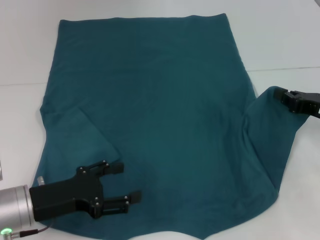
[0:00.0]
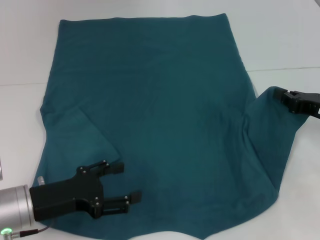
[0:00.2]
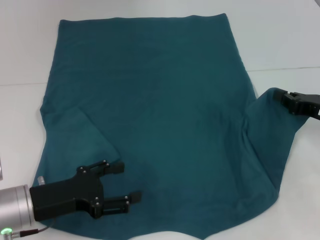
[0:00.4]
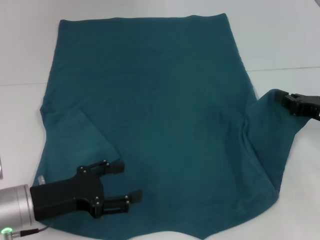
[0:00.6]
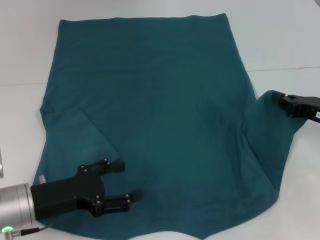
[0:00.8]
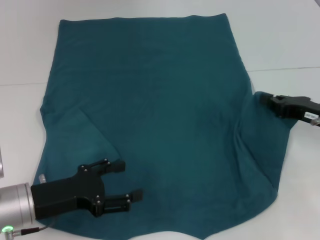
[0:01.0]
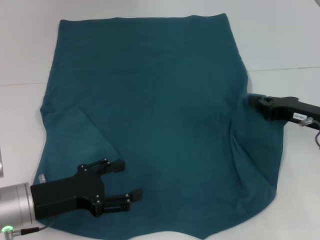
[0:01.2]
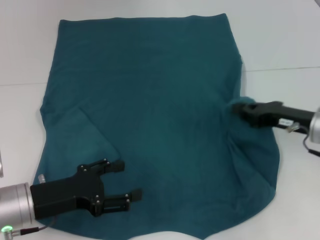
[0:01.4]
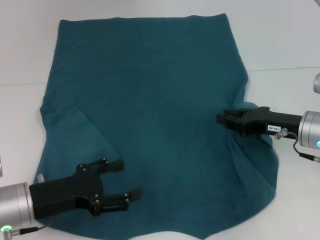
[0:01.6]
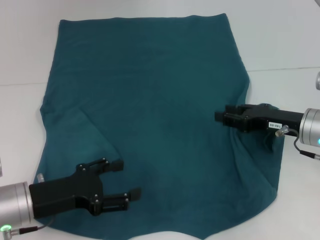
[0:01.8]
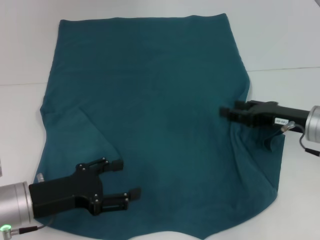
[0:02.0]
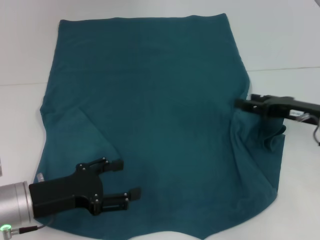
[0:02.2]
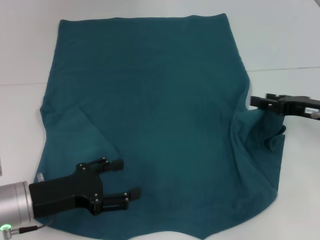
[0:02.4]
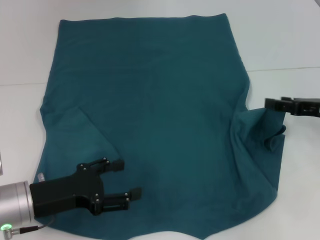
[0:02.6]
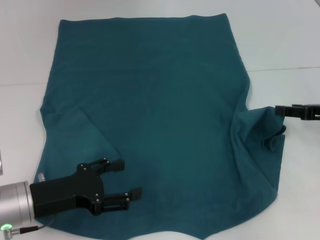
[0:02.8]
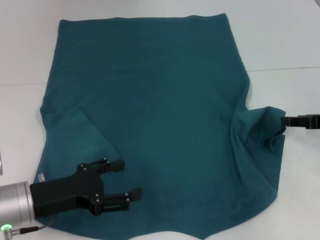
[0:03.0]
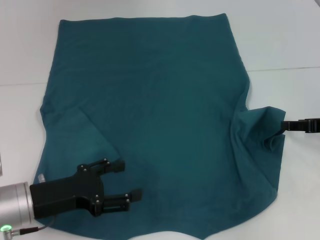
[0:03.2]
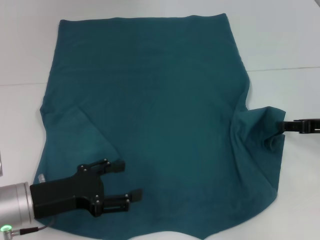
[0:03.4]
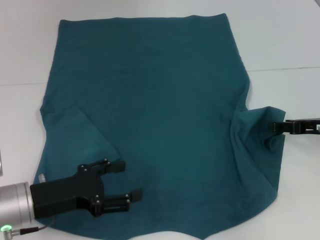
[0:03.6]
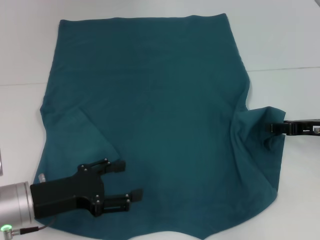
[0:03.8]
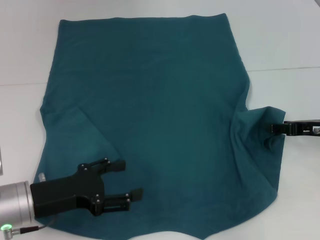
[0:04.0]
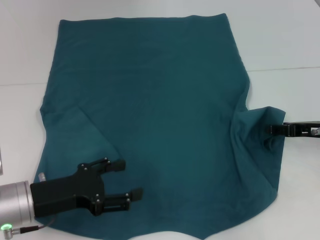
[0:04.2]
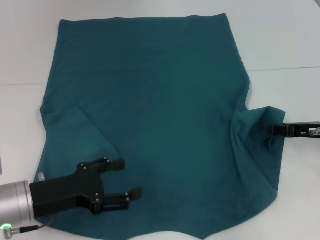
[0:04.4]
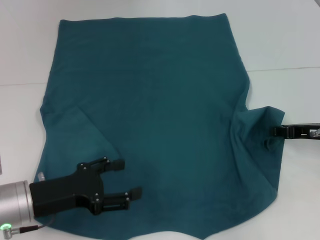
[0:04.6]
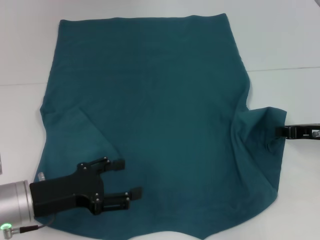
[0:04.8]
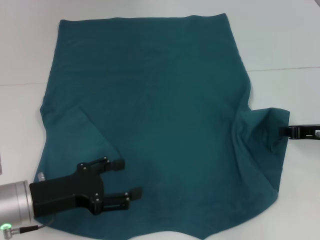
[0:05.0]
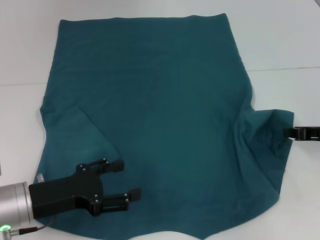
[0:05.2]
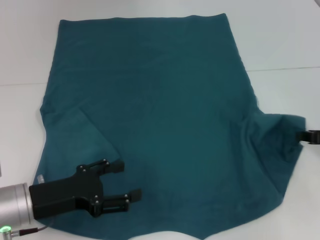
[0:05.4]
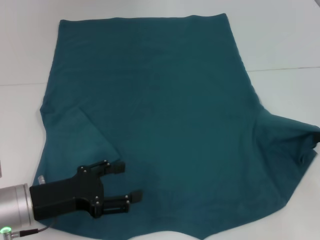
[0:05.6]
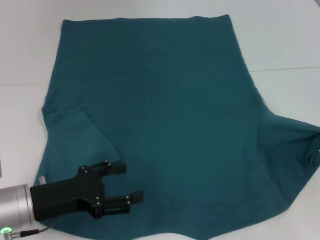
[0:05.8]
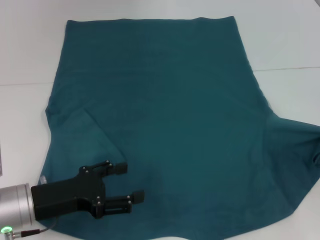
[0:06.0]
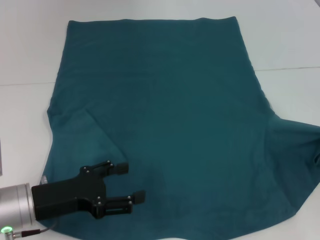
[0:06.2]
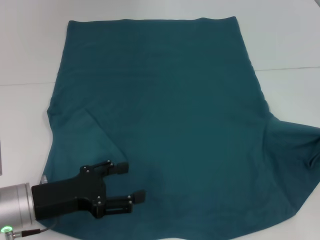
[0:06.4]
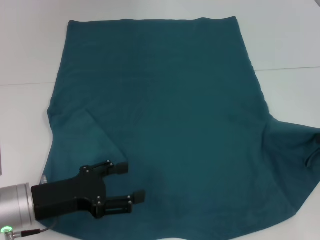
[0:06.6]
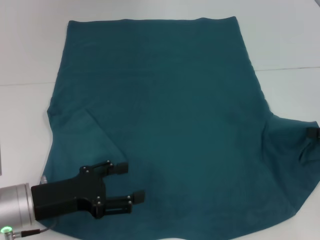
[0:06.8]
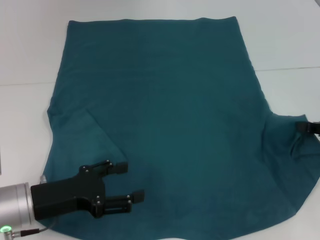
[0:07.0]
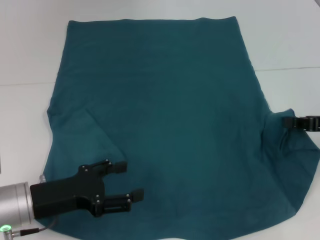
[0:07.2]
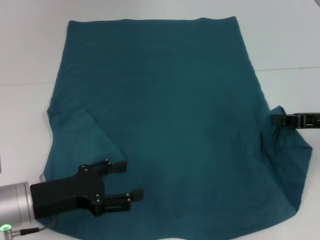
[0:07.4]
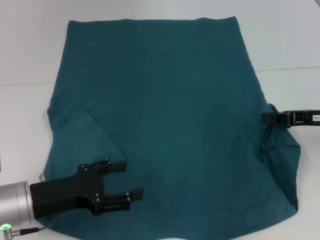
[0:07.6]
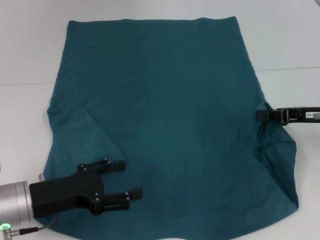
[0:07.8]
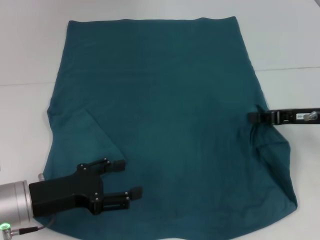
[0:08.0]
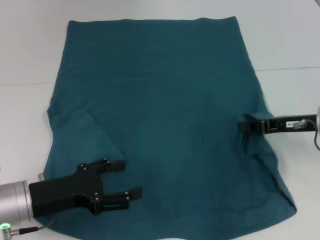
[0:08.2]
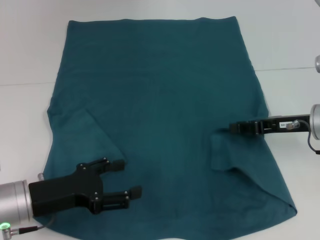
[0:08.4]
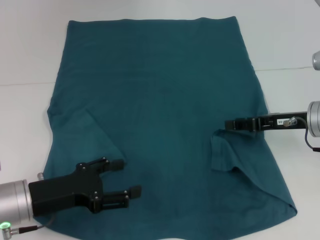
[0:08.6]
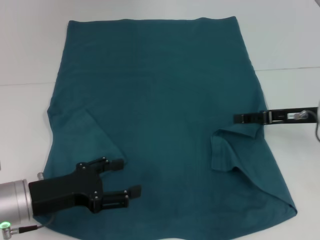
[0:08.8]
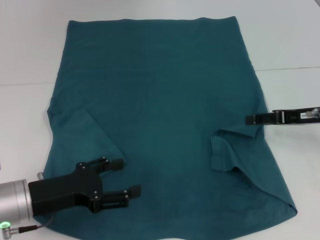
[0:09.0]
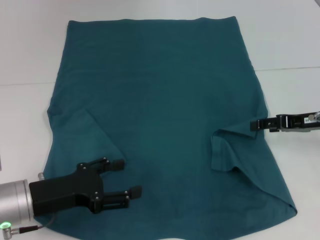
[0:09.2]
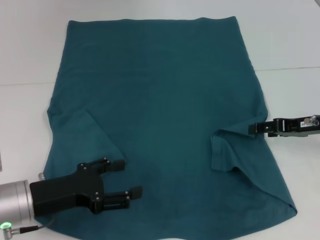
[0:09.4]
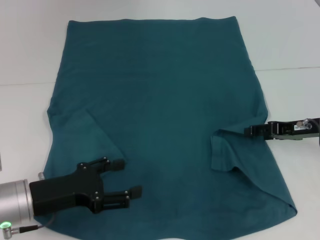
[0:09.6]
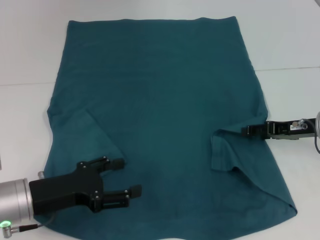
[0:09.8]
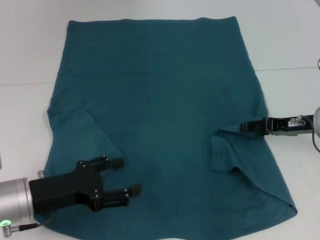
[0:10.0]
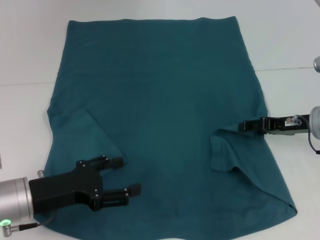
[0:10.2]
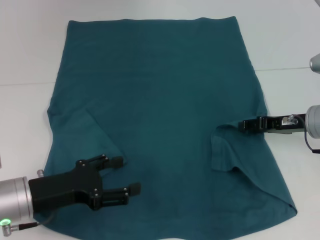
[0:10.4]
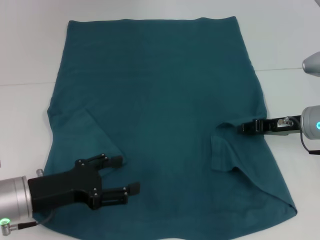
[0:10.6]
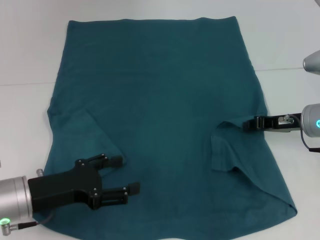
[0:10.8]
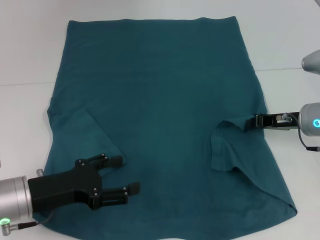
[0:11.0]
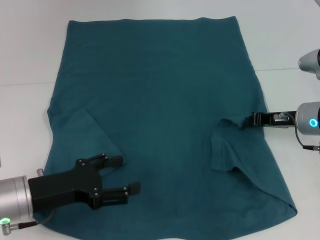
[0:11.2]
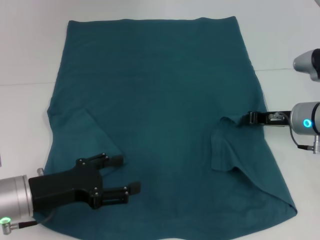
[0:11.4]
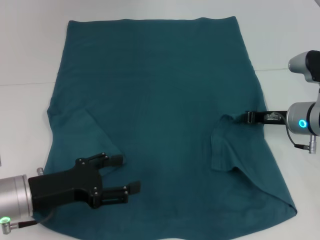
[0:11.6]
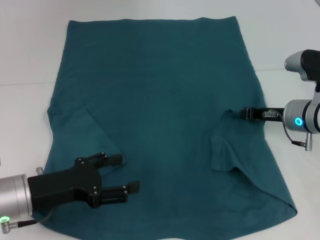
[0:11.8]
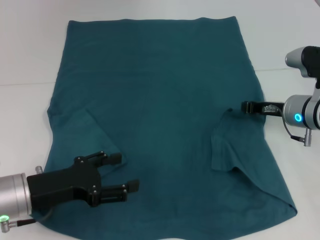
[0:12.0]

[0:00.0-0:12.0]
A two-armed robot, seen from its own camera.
0:00.0 to 0:01.6: The right gripper goes roughly 5 cm to the left.
0:01.6 to 0:03.0: The right gripper travels to the right by some 10 cm, and opens.
0:03.0 to 0:04.4: The grippers make only small movements.
0:04.4 to 0:06.0: The right gripper travels to the right and backward by some 10 cm, and closes up.
0:06.0 to 0:07.6: The right gripper is displaced to the left and forward by about 10 cm.
0:07.6 to 0:09.0: The right gripper opens its fingers.
0:09.0 to 0:10.4: The grippers stay close to where they were, moving slightly.
0:10.4 to 0:12.0: The right gripper closes up.

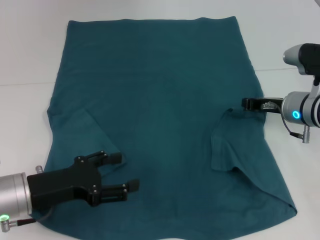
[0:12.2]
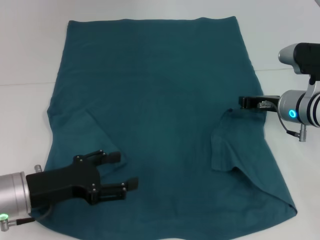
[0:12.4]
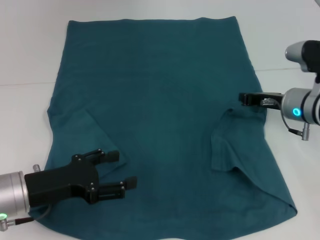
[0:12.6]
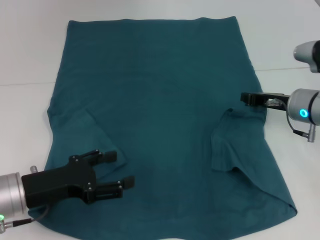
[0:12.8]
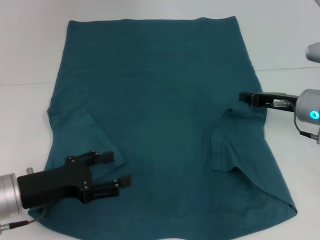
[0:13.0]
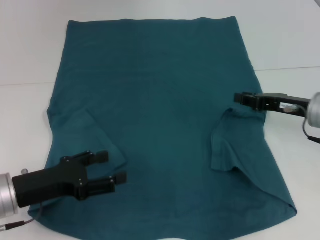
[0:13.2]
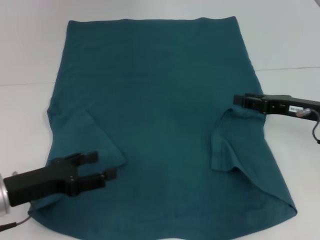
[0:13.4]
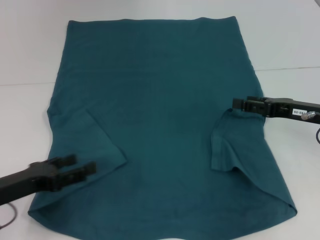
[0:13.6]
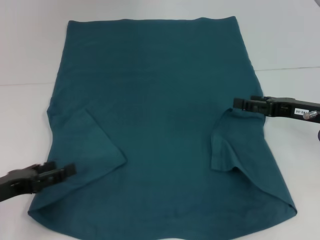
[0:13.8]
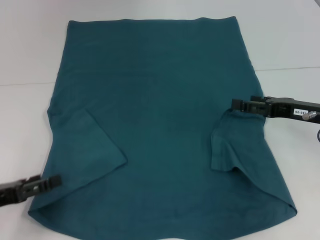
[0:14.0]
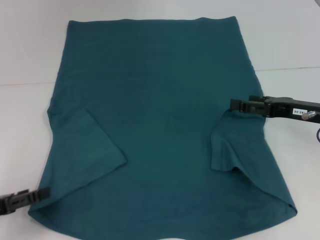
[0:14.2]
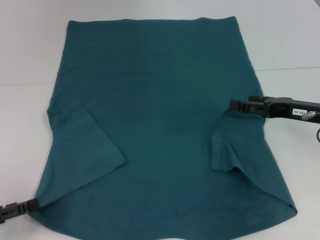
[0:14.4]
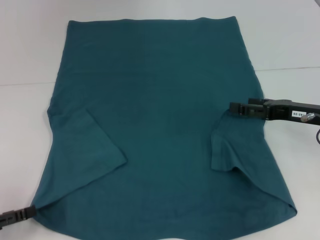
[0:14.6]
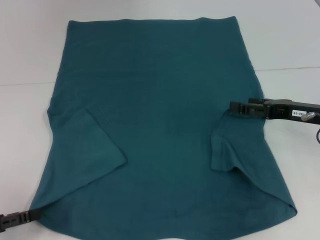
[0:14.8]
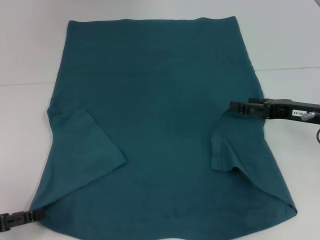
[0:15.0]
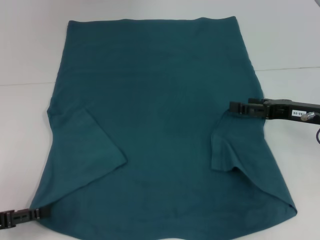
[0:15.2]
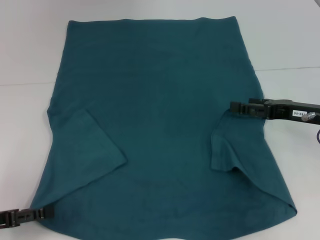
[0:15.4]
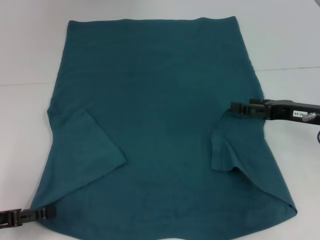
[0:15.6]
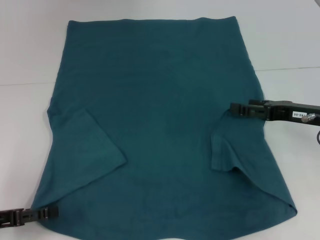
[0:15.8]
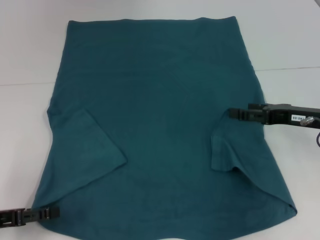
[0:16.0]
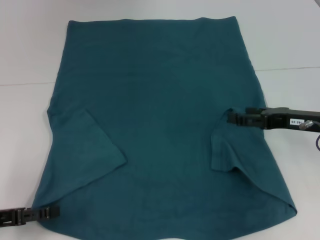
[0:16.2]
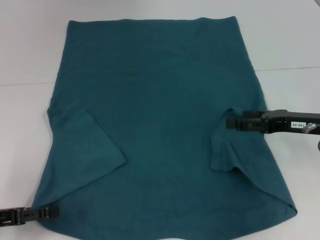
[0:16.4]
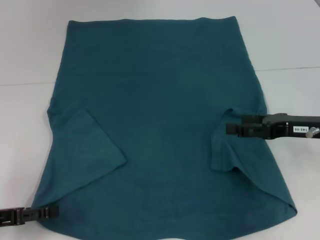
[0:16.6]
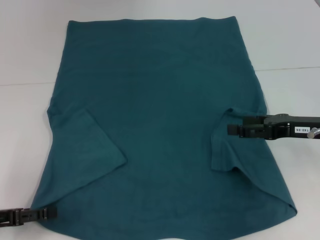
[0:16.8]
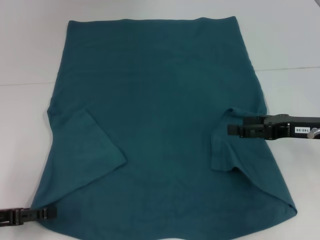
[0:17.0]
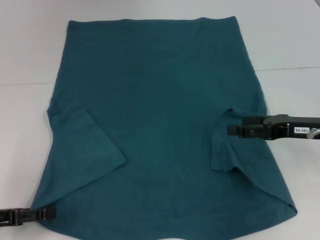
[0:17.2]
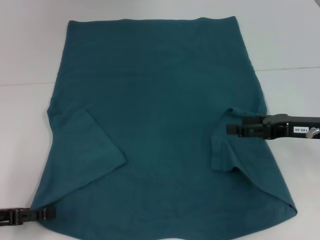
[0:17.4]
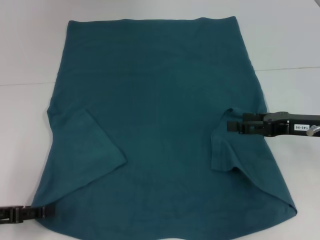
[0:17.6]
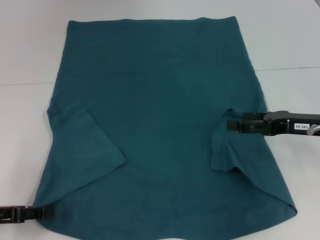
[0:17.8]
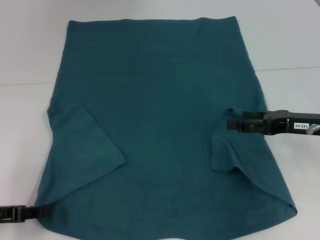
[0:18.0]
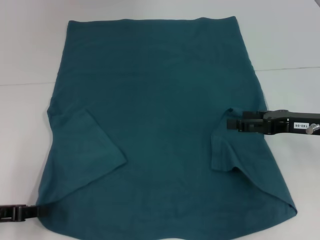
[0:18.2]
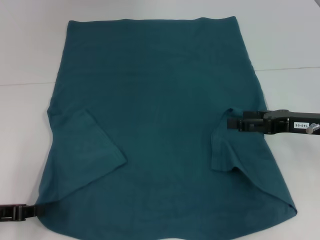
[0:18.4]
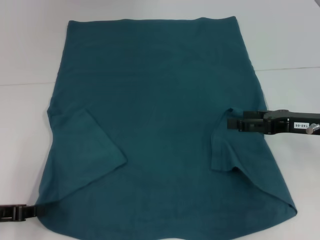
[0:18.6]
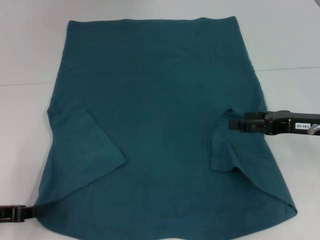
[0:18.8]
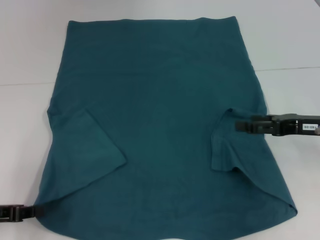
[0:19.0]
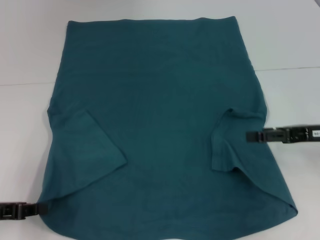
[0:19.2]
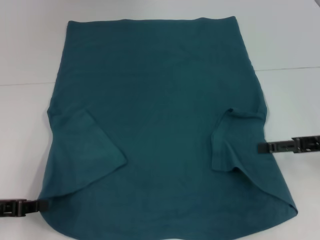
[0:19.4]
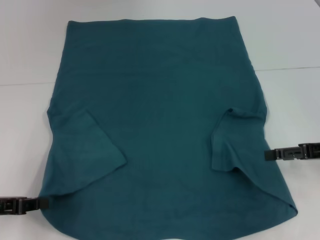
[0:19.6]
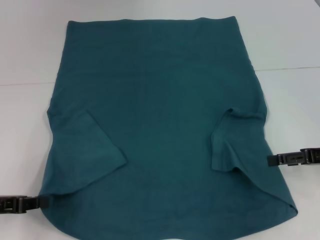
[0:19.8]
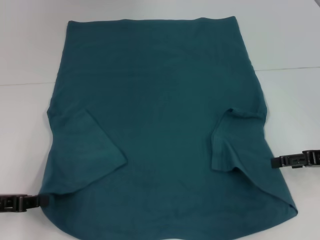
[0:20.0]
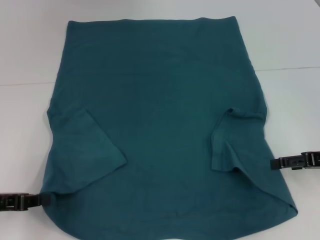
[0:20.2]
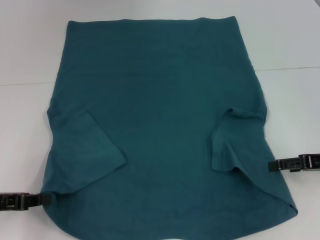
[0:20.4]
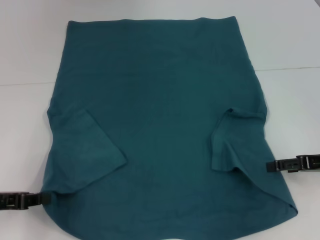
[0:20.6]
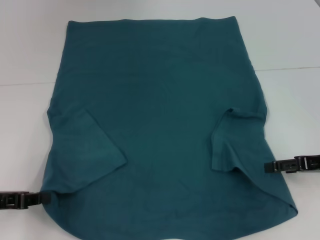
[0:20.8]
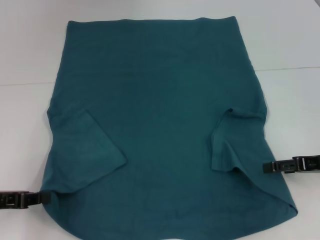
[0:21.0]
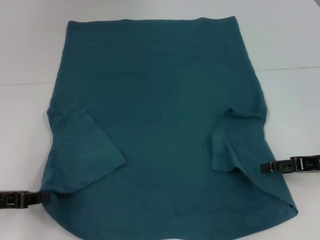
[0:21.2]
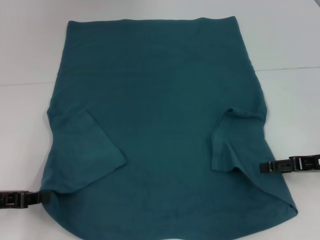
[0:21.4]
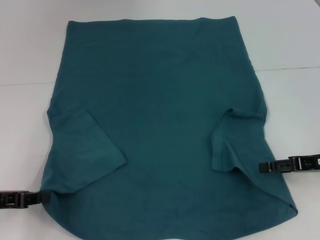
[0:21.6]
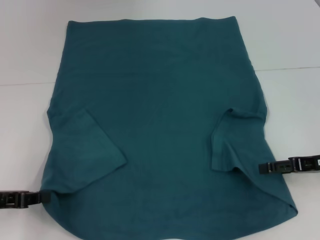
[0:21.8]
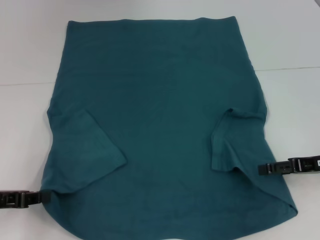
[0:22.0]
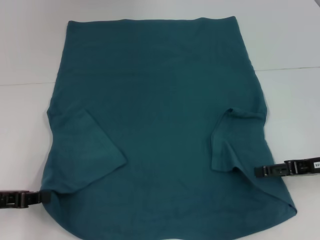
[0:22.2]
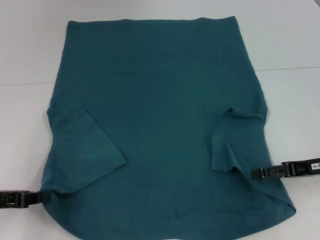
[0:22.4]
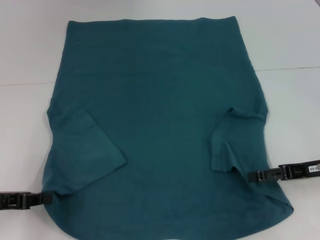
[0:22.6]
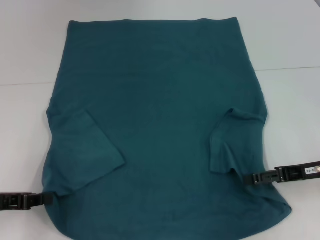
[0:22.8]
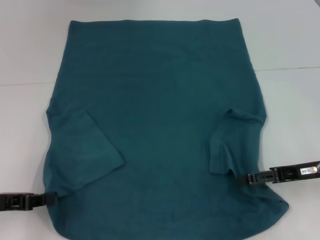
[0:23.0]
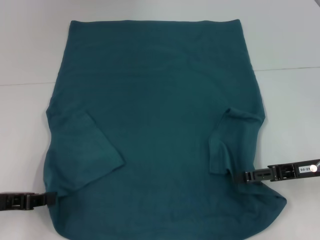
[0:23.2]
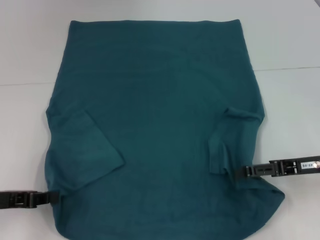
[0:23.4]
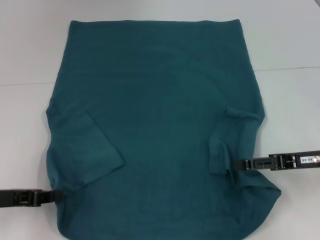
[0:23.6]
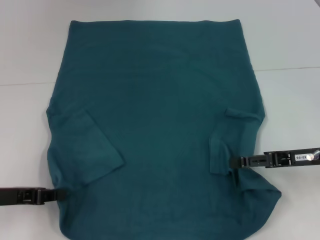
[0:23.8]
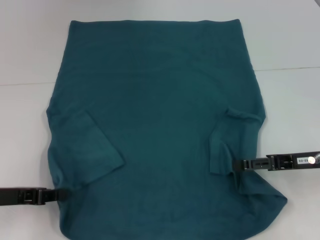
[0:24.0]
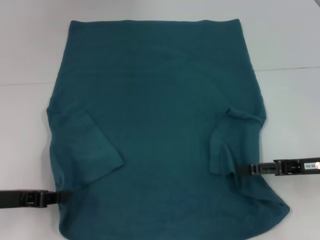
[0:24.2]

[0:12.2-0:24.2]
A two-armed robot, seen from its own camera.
Step, 0:13.2 to 0:18.8: Grab the bottom left corner with your left hand.
0:12.2 to 0:13.8: The right gripper goes approximately 5 cm backward, and opens its fingers. Meanwhile the left gripper travels to the left by some 5 cm.
0:15.2 to 0:16.6: The grippers move only a little.
0:16.6 to 0:18.2: The left gripper closes its fingers.
0:18.2 to 0:19.8: The right gripper is displaced to the right by some 5 cm. Meanwhile the left gripper closes.
0:19.8 to 0:24.2: The grippers move only a little.
